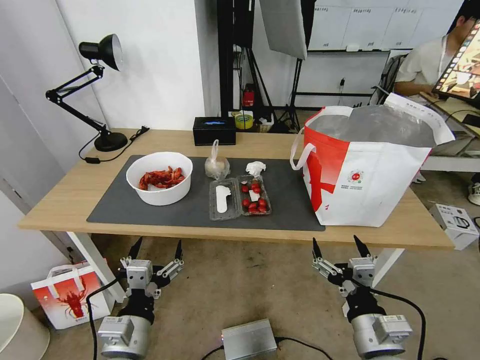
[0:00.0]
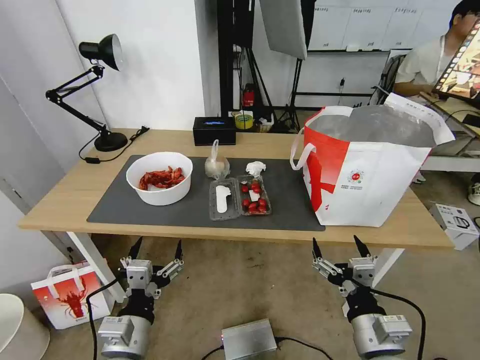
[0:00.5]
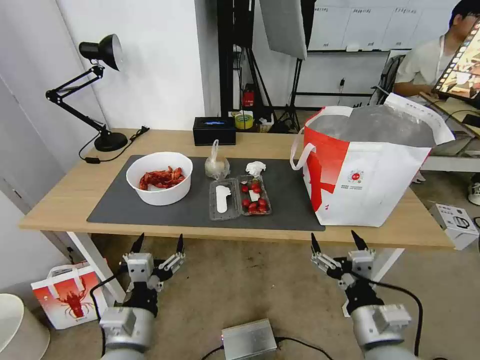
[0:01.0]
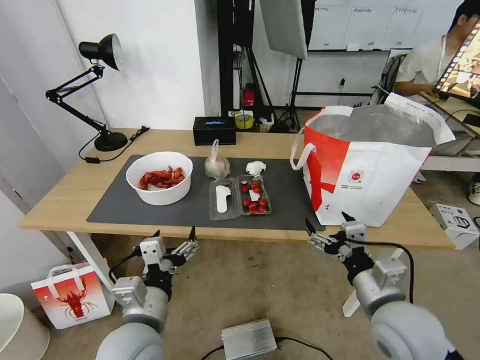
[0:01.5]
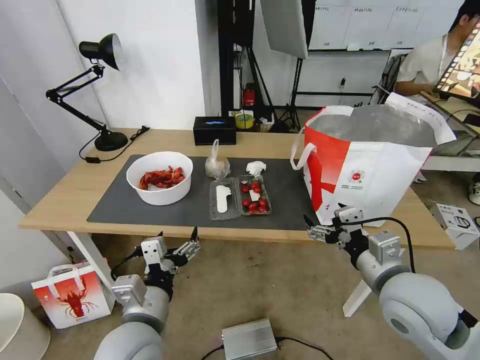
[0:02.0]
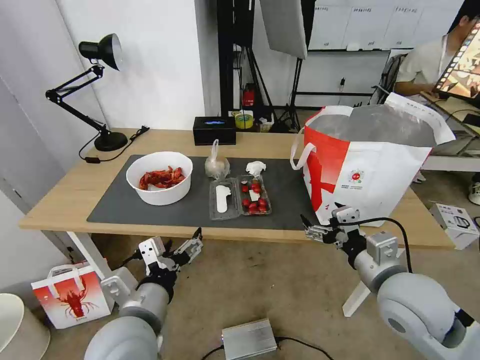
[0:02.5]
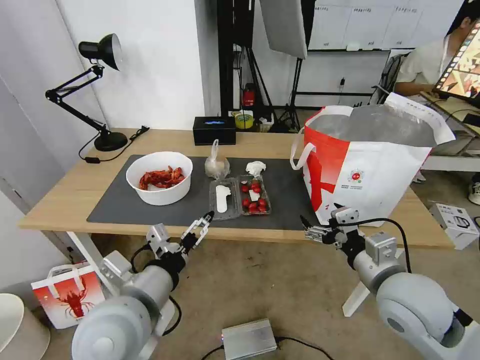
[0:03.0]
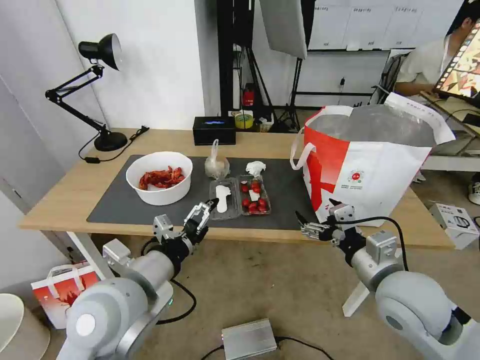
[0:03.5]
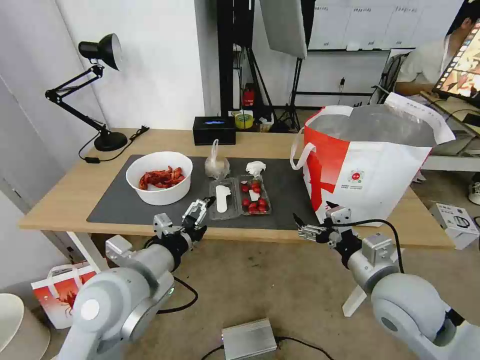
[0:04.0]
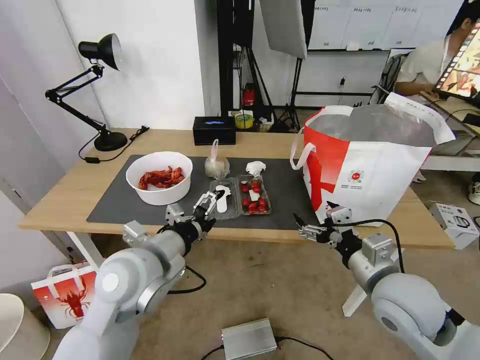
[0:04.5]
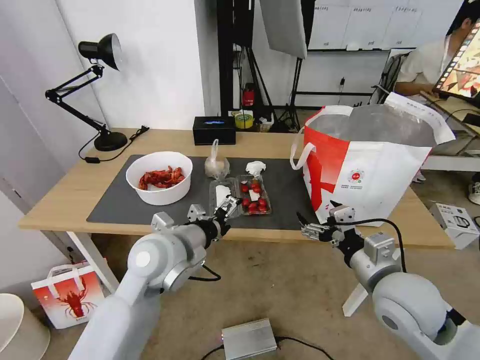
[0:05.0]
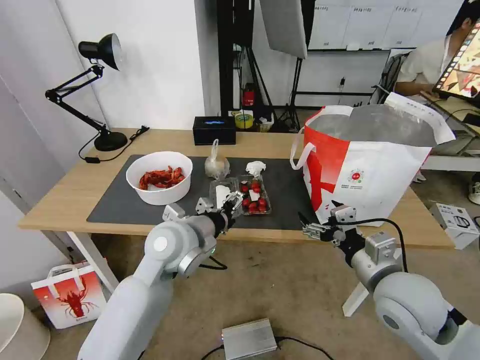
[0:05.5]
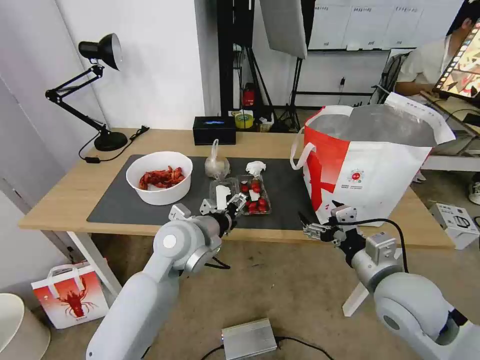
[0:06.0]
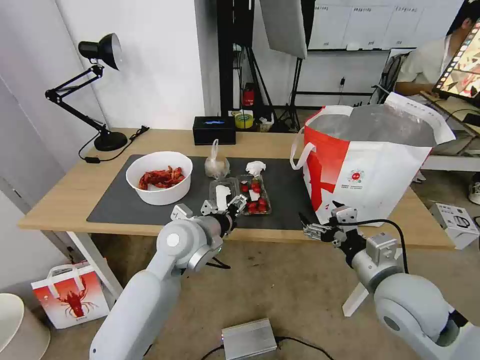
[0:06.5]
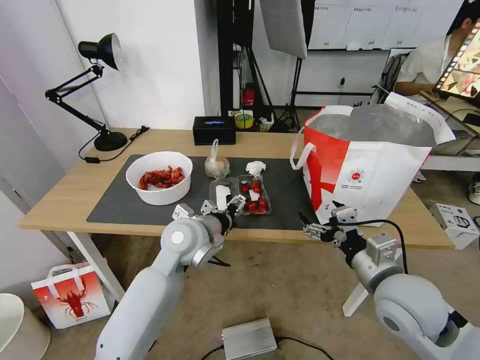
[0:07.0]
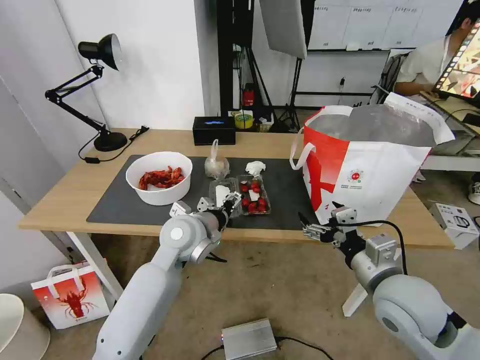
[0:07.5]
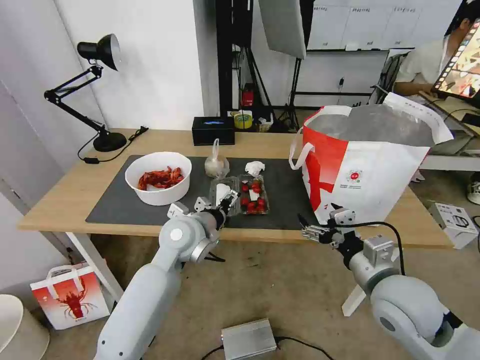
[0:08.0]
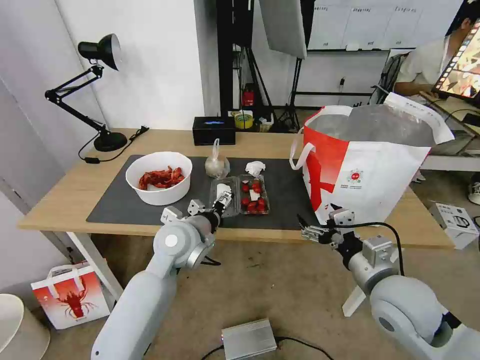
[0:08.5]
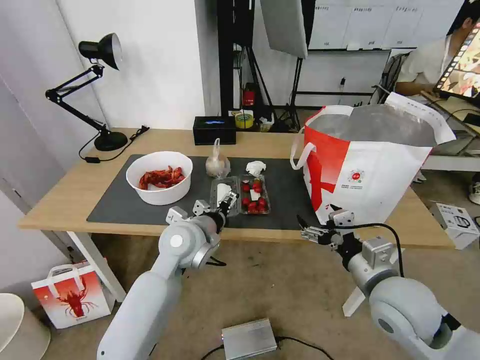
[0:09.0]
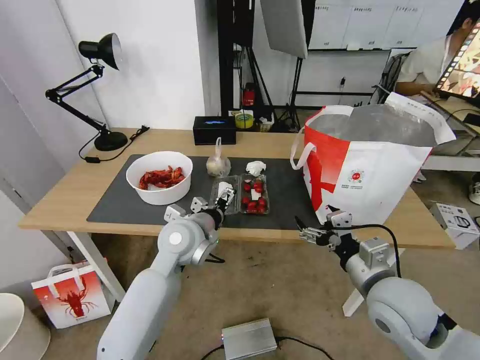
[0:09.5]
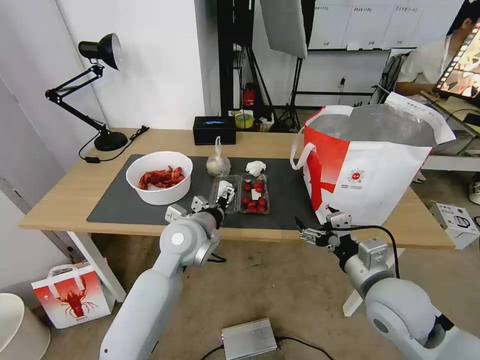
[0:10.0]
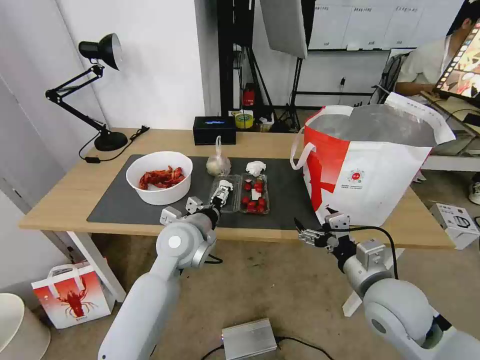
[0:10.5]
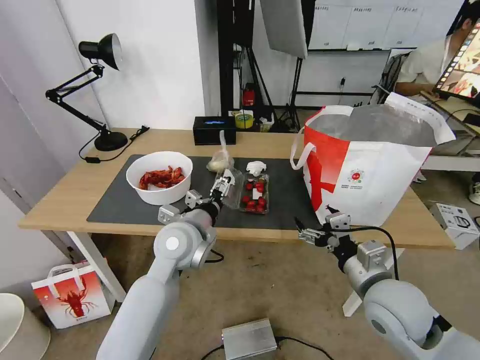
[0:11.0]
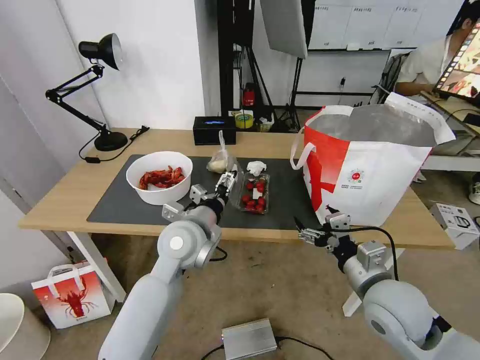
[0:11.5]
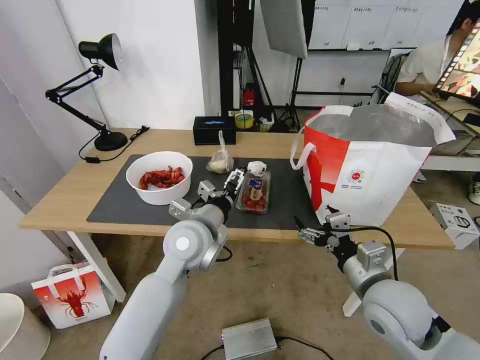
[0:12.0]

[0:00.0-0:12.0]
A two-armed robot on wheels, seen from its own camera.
Task of the whole recording: Pick up the trash from the table and place it into the takeout bag.
0:02.0 to 0:04.0: The left gripper travels upward and forward by roughly 10 cm.
0:04.0 to 0:06.0: The left gripper heads forward and to the right, covering about 15 cm.
0:06.0 to 0:12.0: The grippers make only small movements.

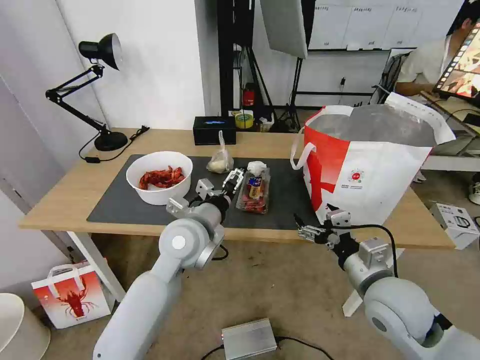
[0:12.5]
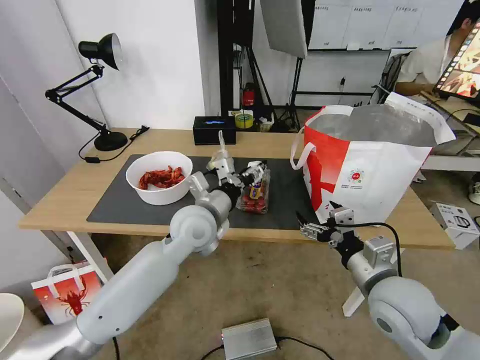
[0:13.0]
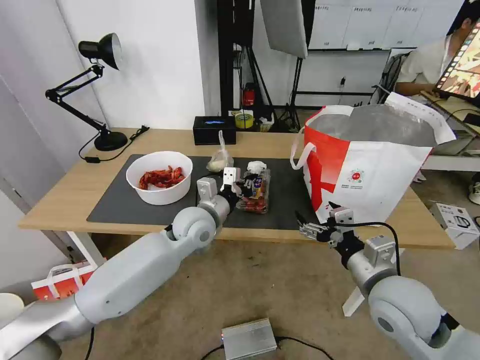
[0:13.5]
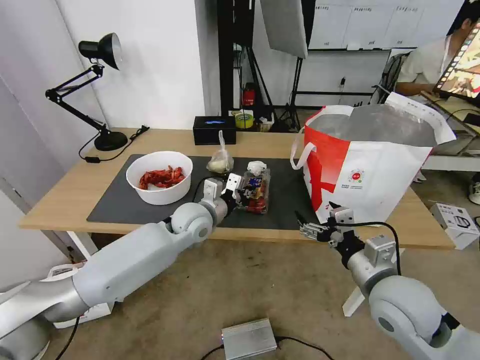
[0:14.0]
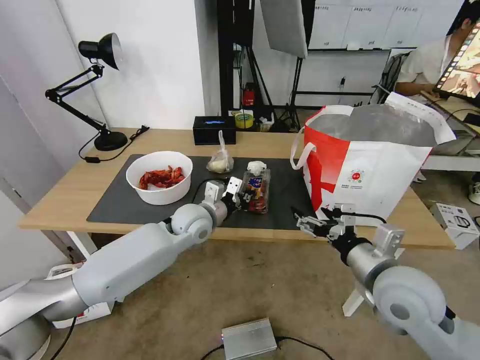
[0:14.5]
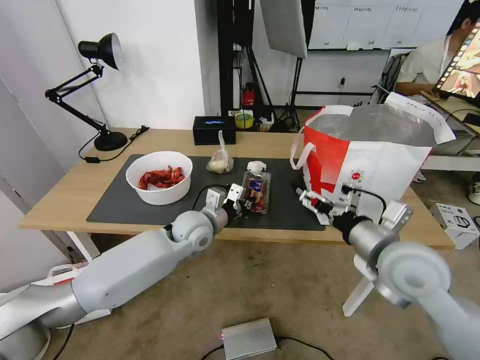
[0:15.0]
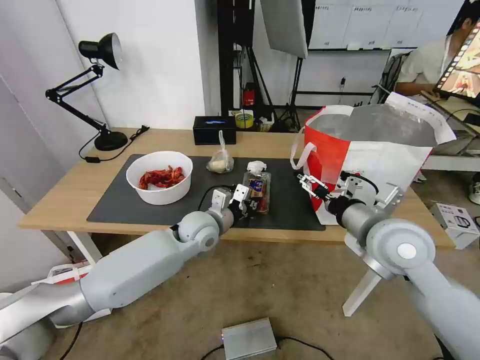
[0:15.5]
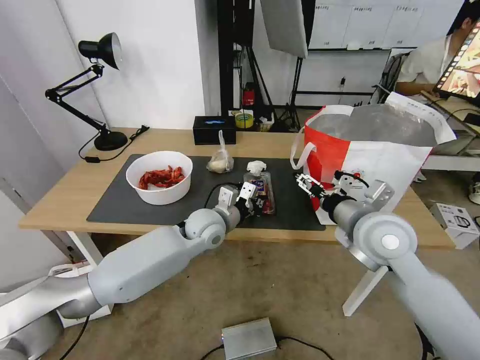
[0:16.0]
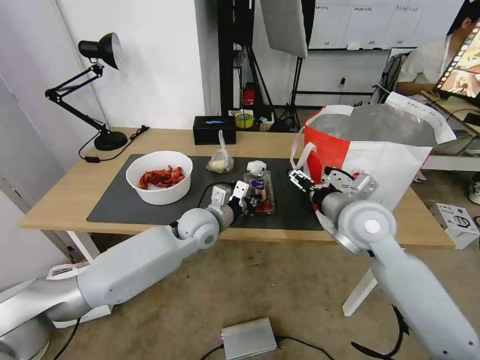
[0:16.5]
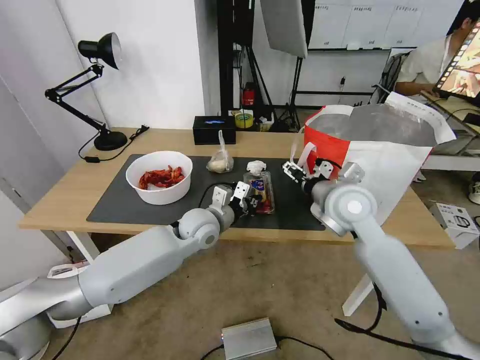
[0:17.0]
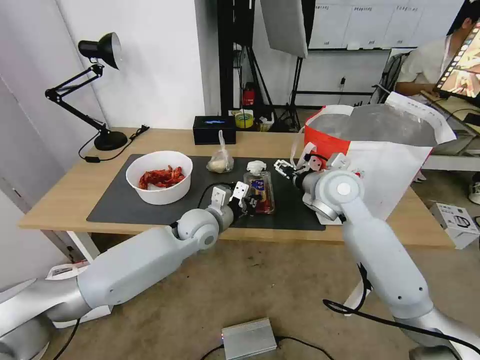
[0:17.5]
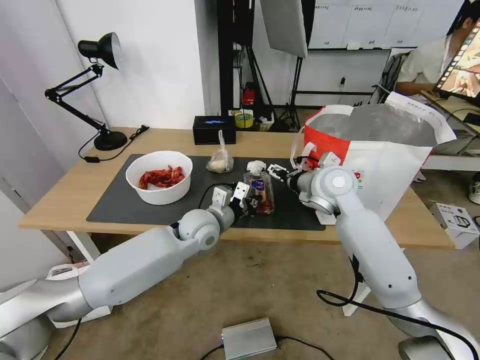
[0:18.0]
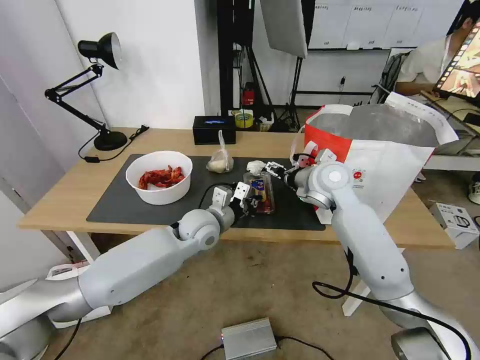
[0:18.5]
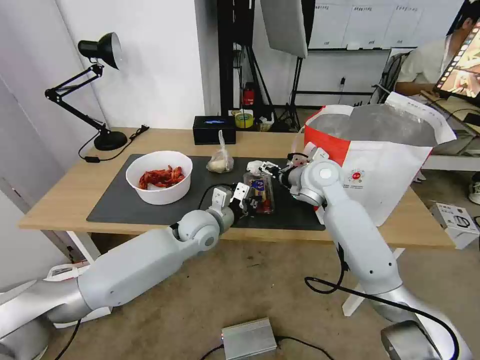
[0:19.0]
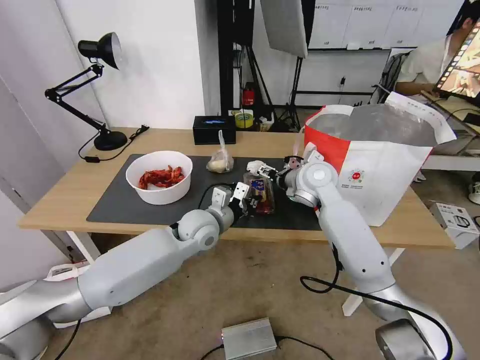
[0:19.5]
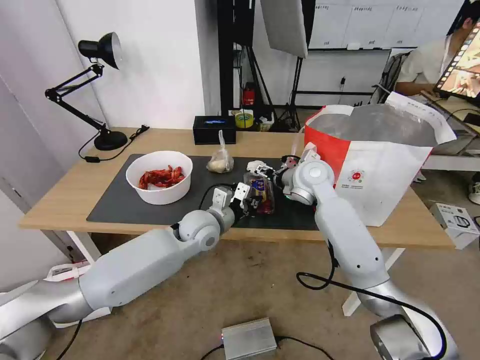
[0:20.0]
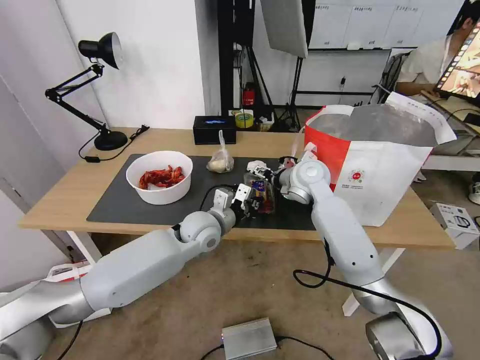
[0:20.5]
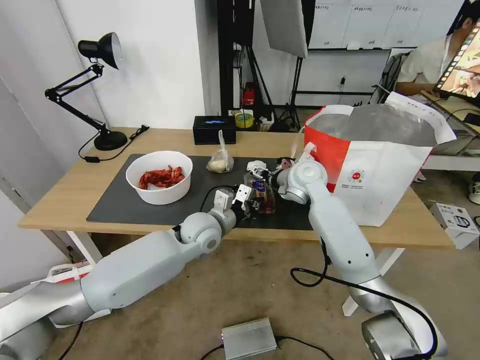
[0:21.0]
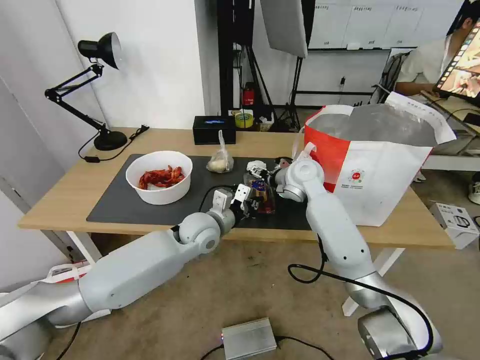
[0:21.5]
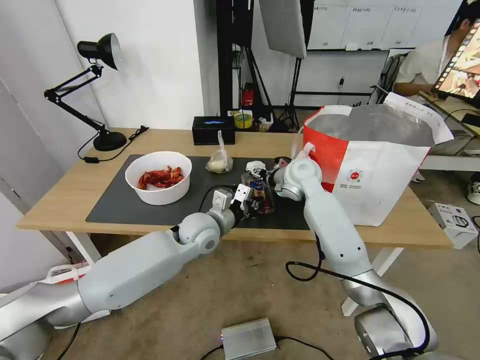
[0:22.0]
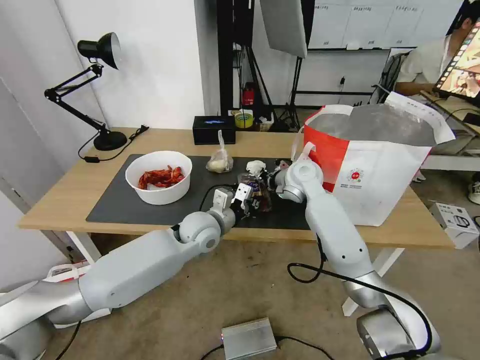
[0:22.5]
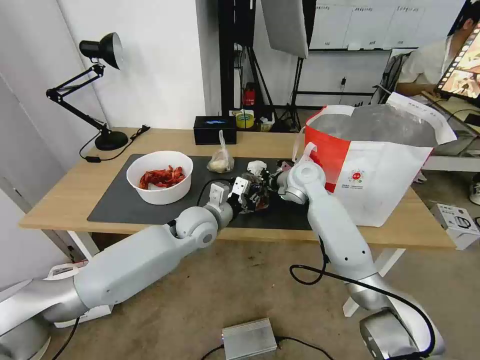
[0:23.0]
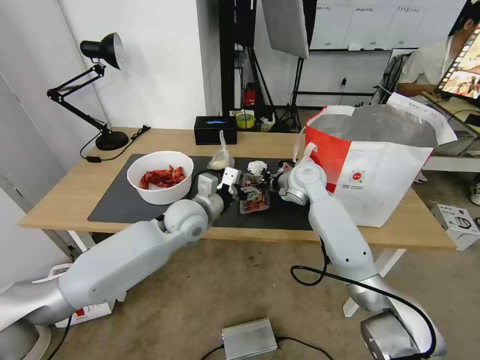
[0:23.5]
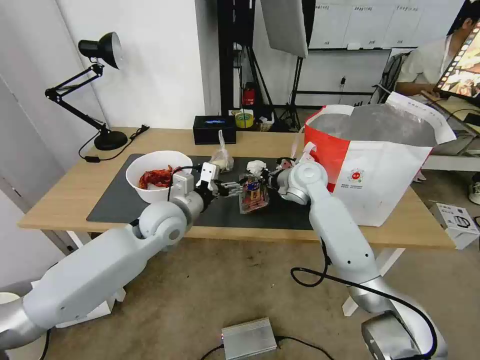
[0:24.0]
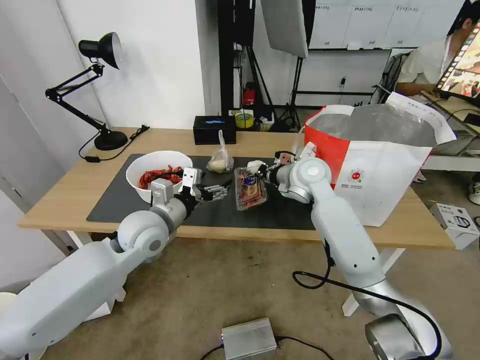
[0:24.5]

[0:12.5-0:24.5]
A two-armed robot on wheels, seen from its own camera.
Task of the whole recording: Pick up the trash from the table and place it into the takeout bag.
0:12.5 to 0:14.5: The left gripper is displaced forward and downward by some 10 cm, and closes up.
0:14.5 to 0:16.5: The right gripper shifts about 10 cm forward.
0:16.5 to 0:18.5: The right gripper heads forward, covering approximately 10 cm.
0:18.5 to 0:20.5: The right gripper changes place by roughly 5 cm.
0:20.5 to 0:22.5: The right gripper closes.
0:22.5 to 0:24.5: The left gripper shifts some 10 cm to the left and upward, and opens up.

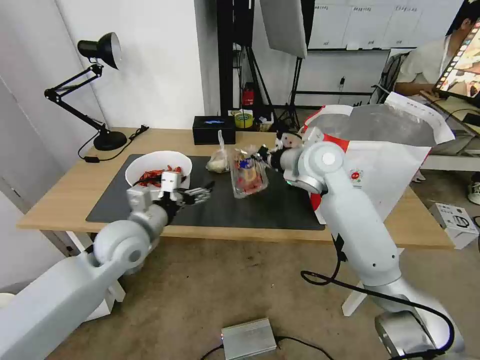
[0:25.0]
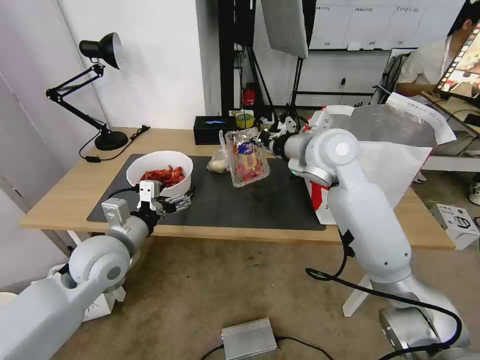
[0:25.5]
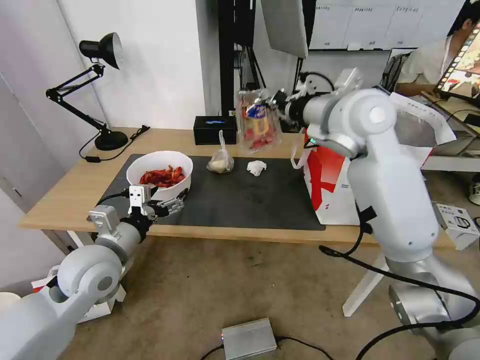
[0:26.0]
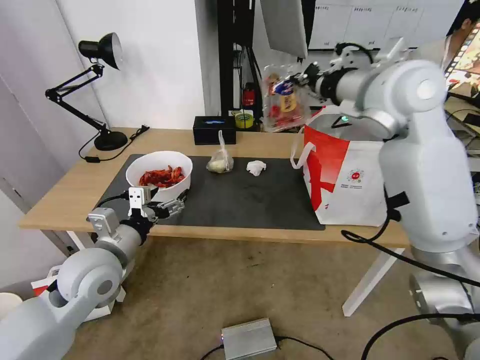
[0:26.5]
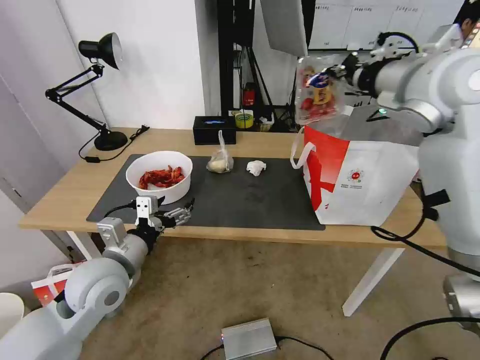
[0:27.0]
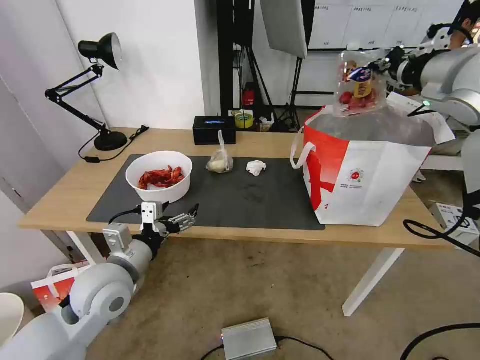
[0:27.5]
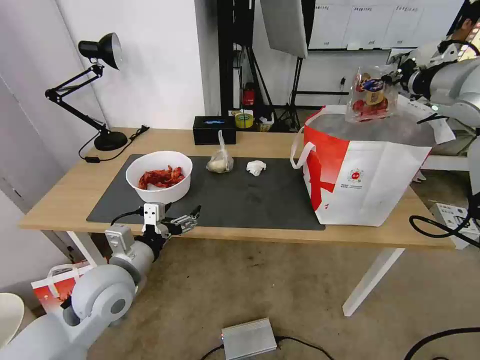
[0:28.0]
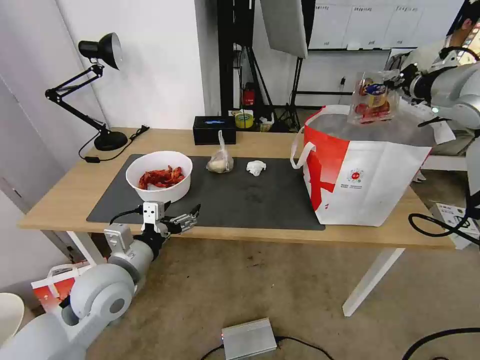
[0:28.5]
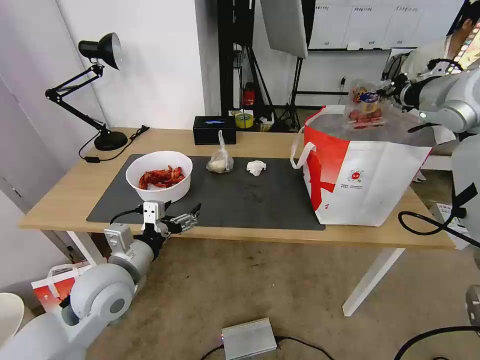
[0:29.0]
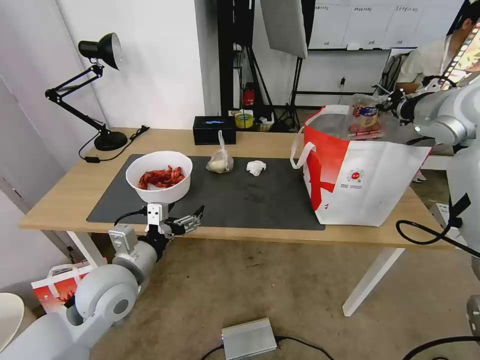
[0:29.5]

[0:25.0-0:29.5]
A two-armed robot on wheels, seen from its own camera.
Task of the whole recording: Pick up the trash from the table and place it into the takeout bag.
0:25.0 to 0:27.0: The left gripper goes some 5 cm backward. The right gripper moves upward and to the right, some 20 cm.
0:27.0 to 0:29.5: The right gripper moves to the right and downward, roughly 10 cm.
